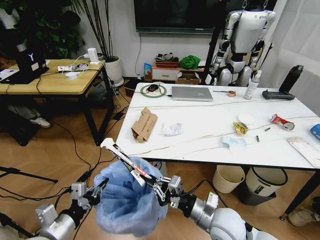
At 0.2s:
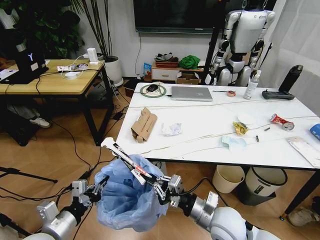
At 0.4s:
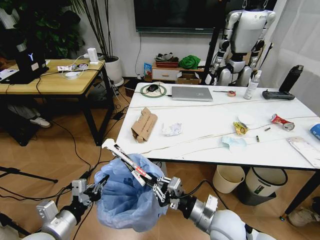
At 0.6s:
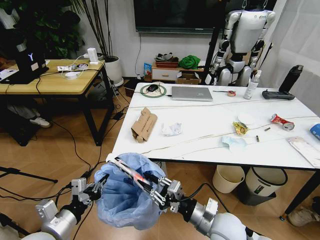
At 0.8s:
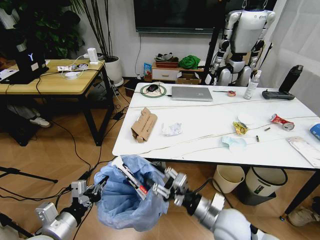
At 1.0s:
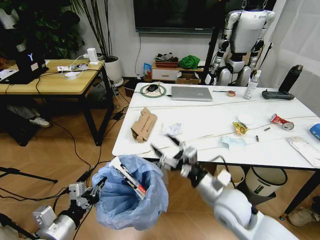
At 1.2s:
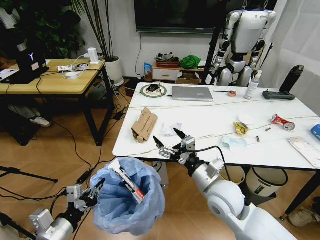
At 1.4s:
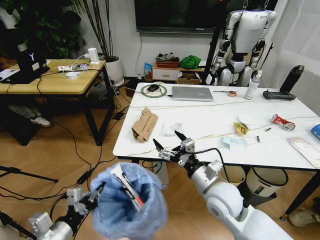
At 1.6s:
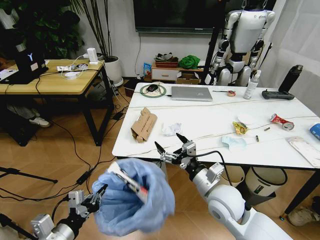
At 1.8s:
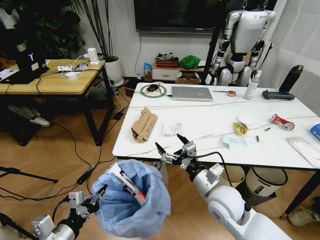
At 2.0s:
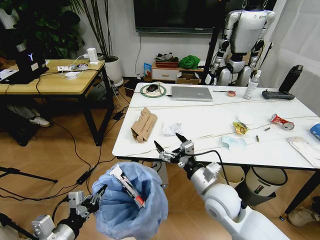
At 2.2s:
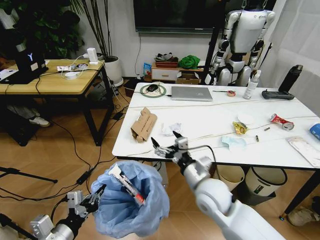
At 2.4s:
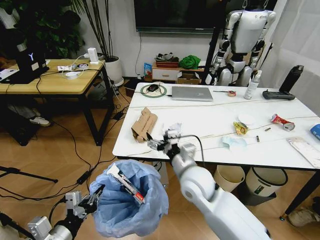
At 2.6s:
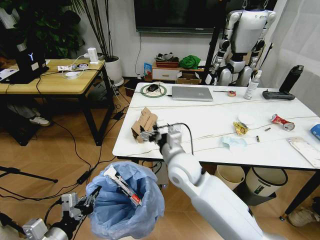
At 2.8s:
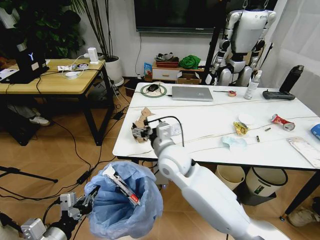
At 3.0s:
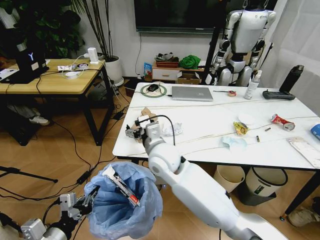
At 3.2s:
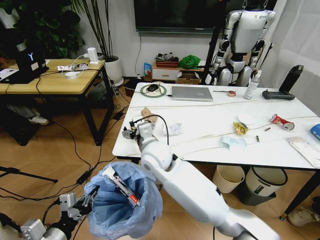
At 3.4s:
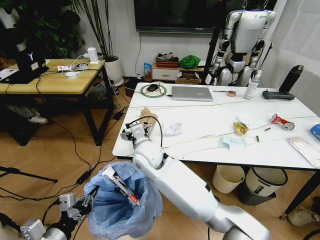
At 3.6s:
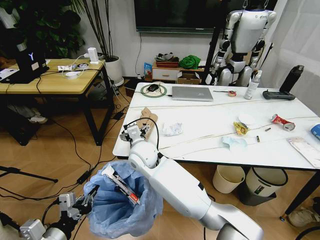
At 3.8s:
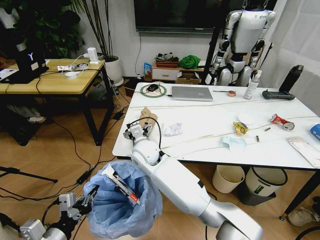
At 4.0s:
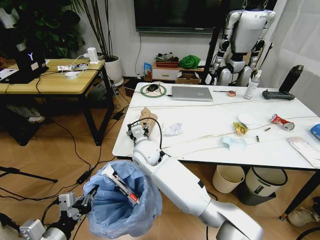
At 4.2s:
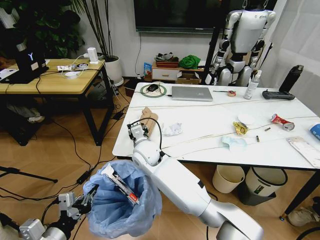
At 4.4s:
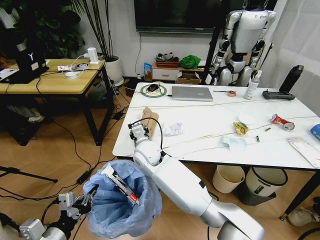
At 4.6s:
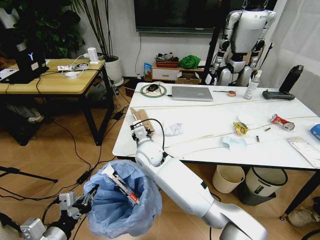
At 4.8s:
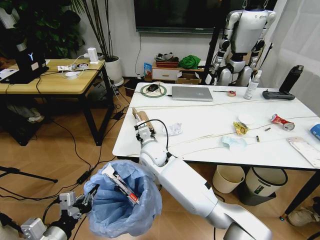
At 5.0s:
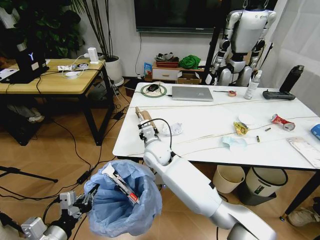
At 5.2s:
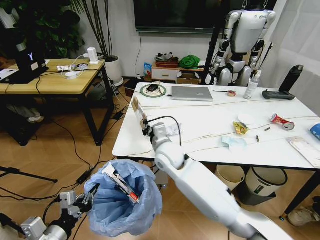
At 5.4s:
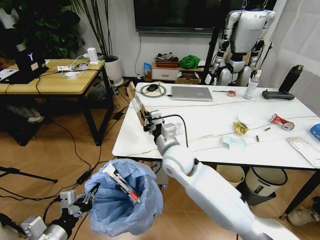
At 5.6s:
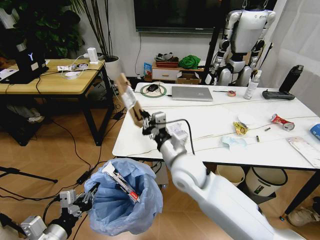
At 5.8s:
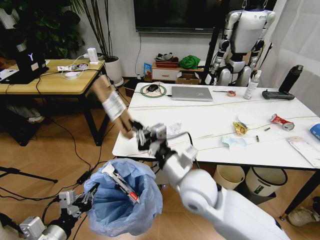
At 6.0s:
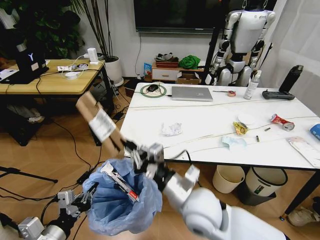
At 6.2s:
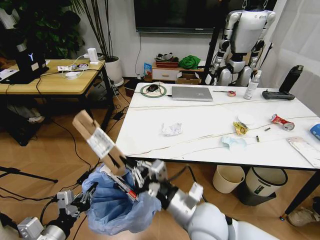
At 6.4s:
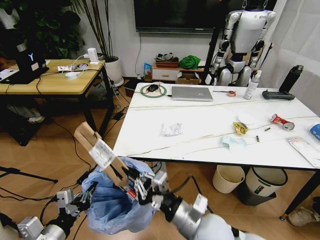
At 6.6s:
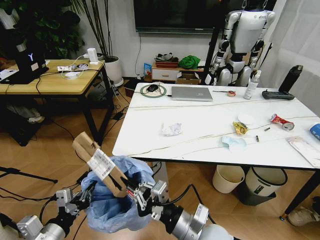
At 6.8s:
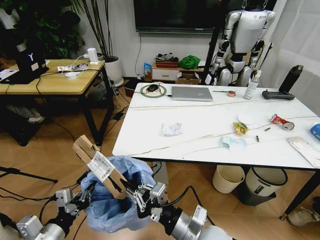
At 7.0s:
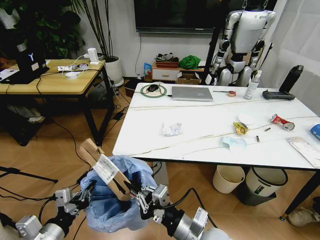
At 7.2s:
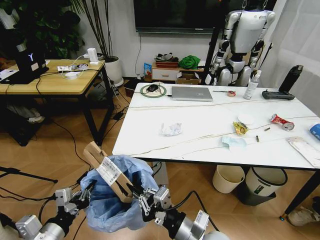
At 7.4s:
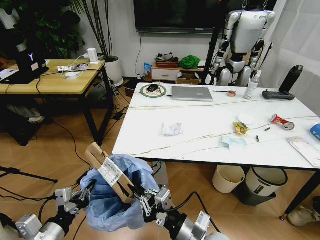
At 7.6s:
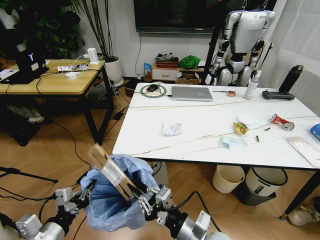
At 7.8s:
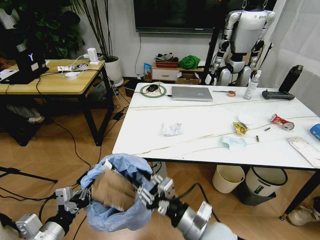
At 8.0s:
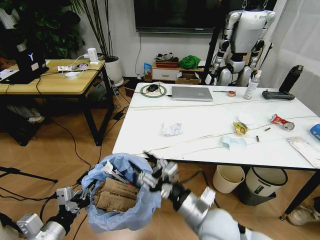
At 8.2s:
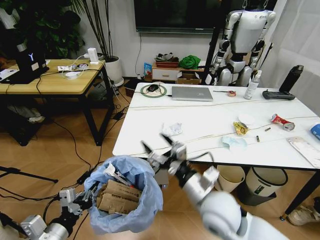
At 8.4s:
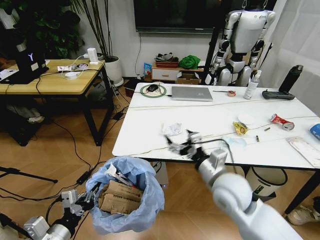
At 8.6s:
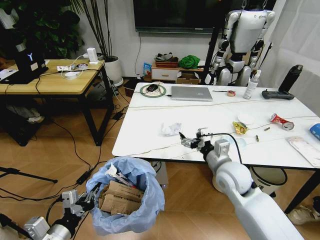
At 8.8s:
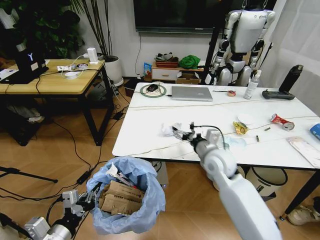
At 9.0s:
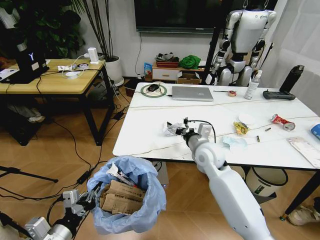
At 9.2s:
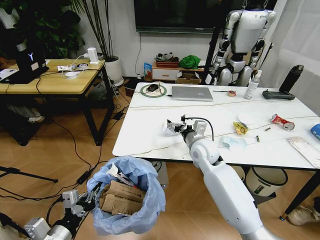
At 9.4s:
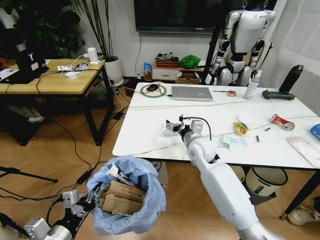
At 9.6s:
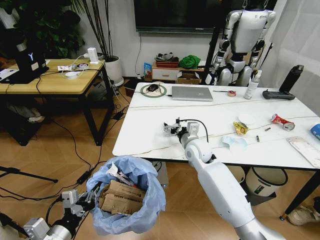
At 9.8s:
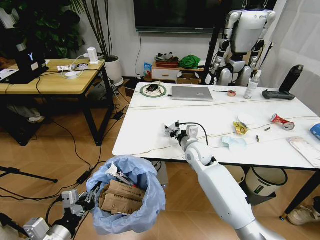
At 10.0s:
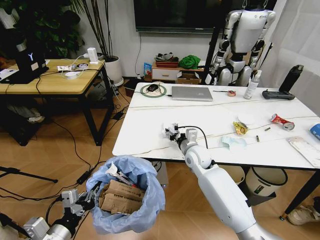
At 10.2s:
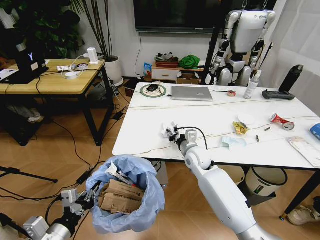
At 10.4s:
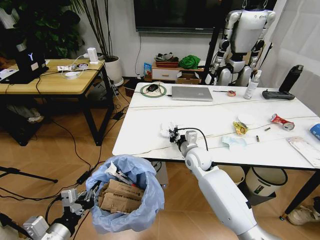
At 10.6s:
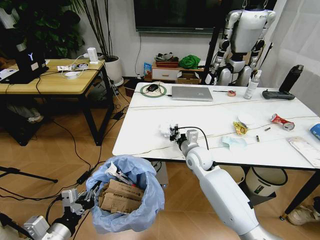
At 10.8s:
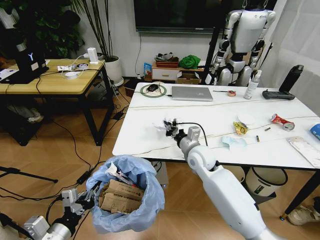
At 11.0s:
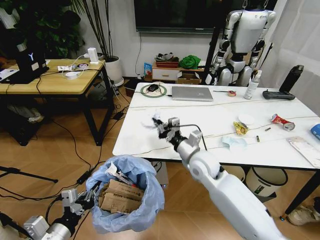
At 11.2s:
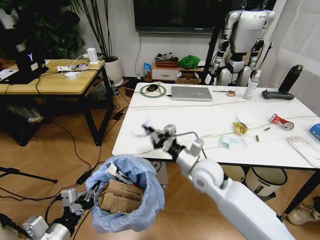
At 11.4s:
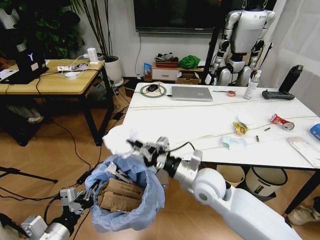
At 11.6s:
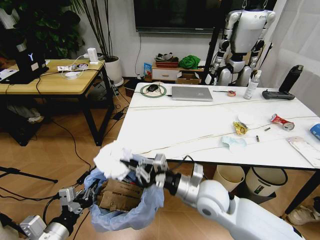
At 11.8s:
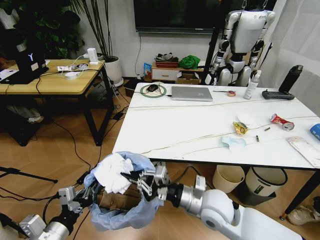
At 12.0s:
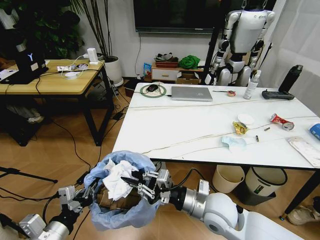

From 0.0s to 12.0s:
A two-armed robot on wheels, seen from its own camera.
Task of the whole recording: Pick up the trash bin and place the trash from the table into it.
From 0.0s to 1.6s: The right gripper moves forward, roughly 5 cm, and opens its fingers.
From 1.6s to 3.0s: The right gripper goes roughly 20 cm to the left, forward and upward.
From 3.0s to 4.4s: The right gripper shifts some 10 cm downward, forward and to the left, and closes its fingers.
From 4.4s to 6.0s: The right gripper moves backward and to the right, about 25 cm.
From 6.0s to 7.6s: The right gripper moves backward and downward, about 10 cm.
From 7.6s to 9.0s: The right gripper moves forward, roughly 25 cm, and opens up.
From 9.0s to 10.4s: The right gripper heads downward, covering approximately 5 cm, and closes.
From 10.4s to 12.0s: The right gripper shifts some 20 cm backward.

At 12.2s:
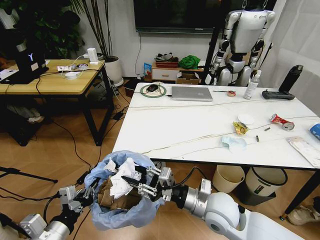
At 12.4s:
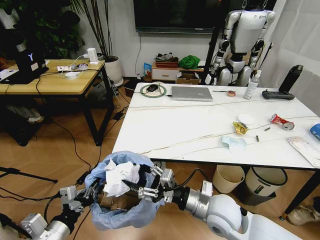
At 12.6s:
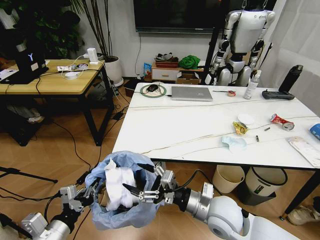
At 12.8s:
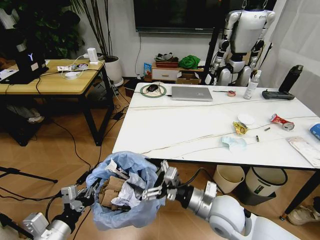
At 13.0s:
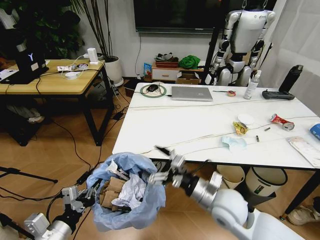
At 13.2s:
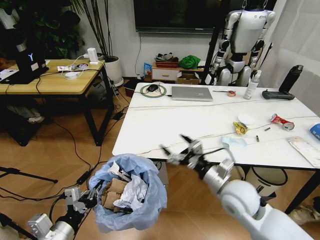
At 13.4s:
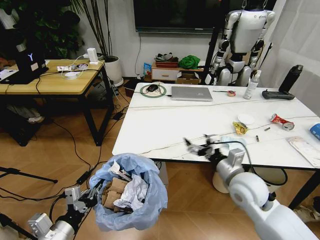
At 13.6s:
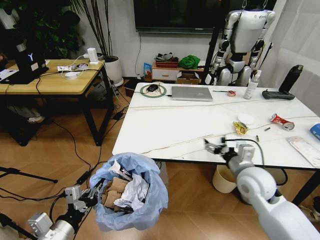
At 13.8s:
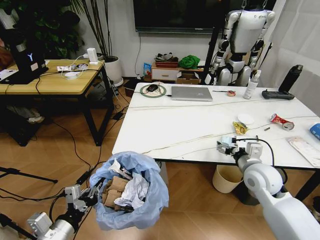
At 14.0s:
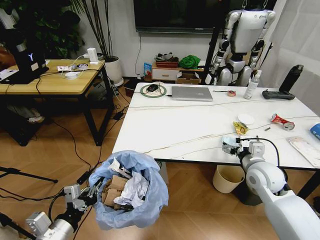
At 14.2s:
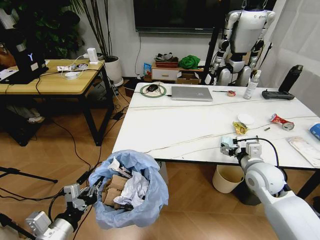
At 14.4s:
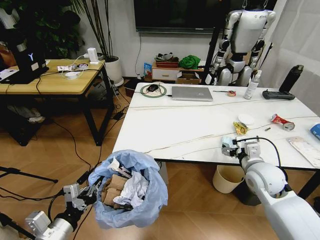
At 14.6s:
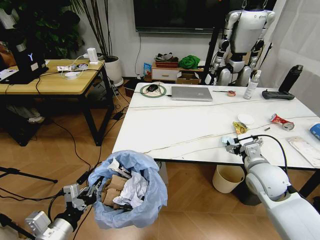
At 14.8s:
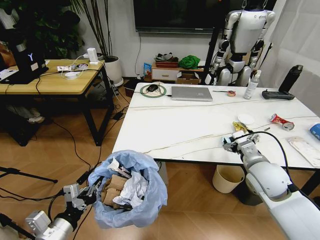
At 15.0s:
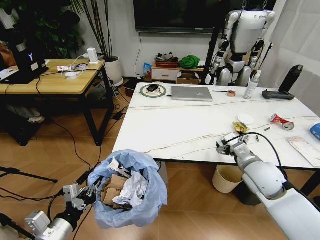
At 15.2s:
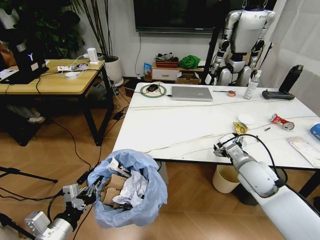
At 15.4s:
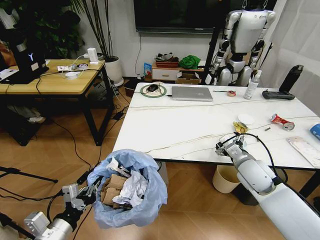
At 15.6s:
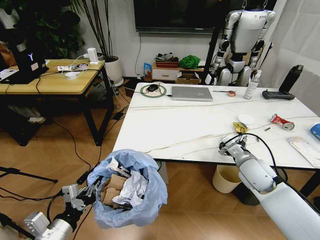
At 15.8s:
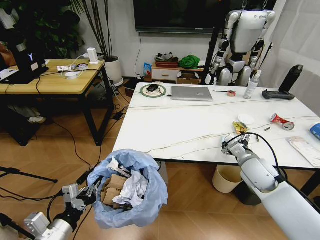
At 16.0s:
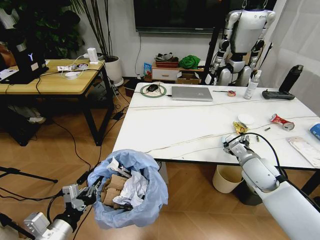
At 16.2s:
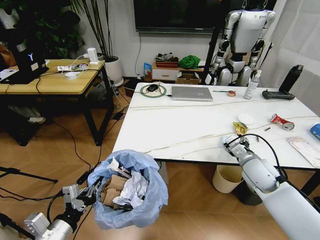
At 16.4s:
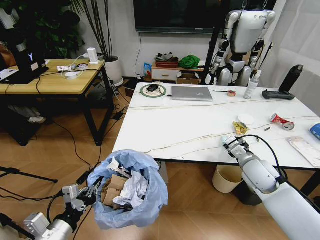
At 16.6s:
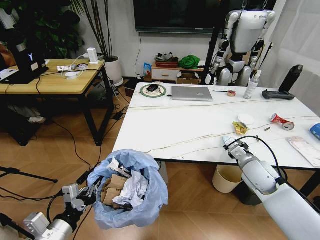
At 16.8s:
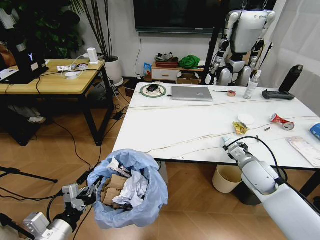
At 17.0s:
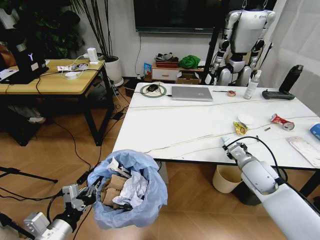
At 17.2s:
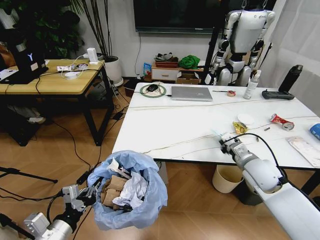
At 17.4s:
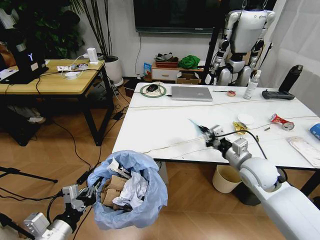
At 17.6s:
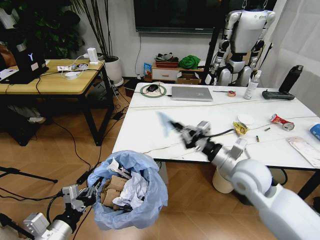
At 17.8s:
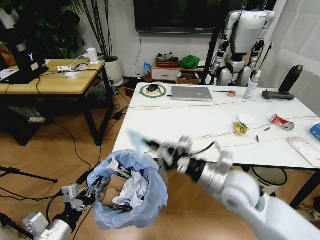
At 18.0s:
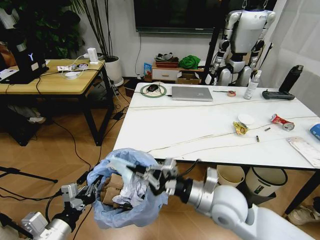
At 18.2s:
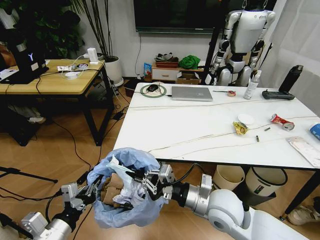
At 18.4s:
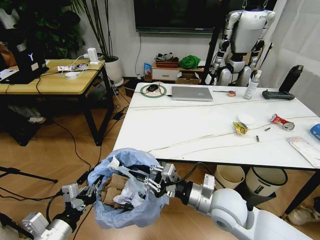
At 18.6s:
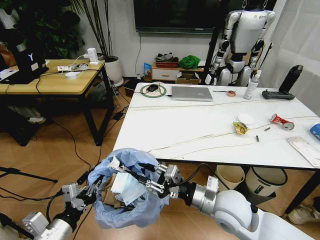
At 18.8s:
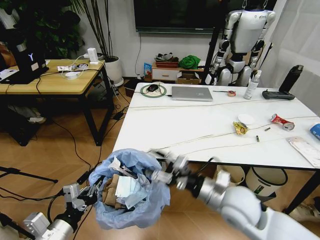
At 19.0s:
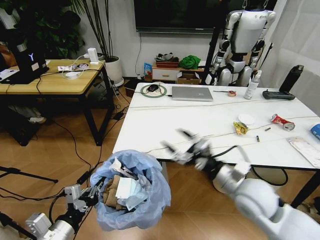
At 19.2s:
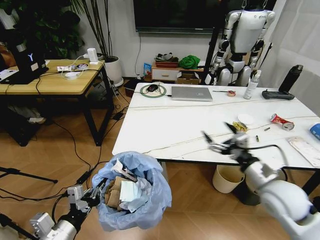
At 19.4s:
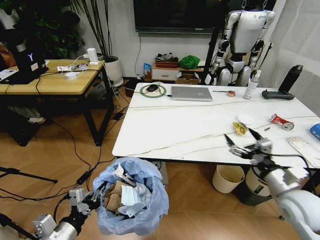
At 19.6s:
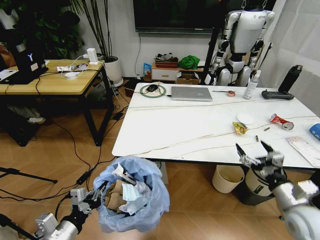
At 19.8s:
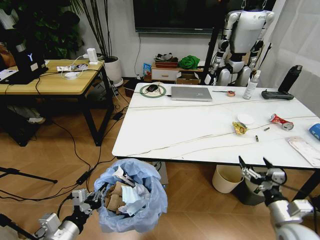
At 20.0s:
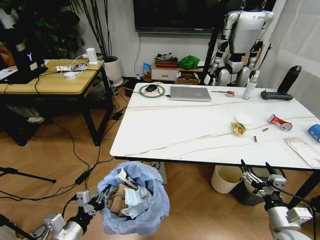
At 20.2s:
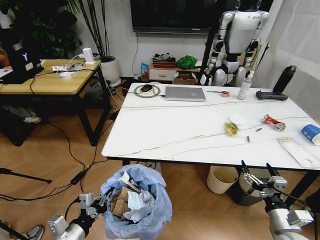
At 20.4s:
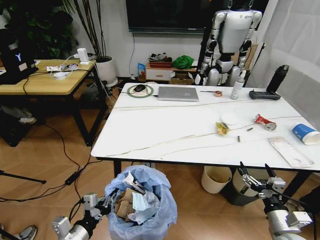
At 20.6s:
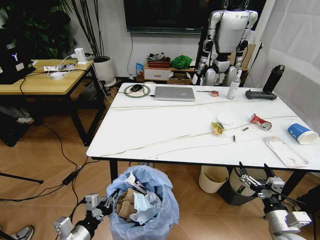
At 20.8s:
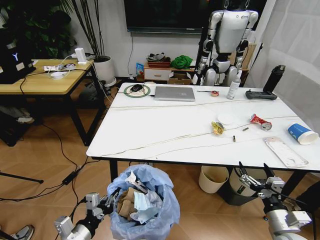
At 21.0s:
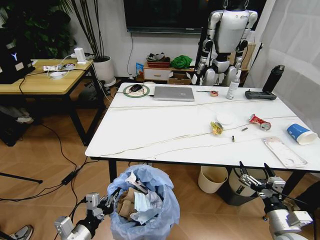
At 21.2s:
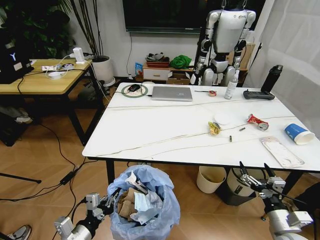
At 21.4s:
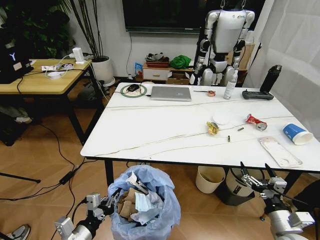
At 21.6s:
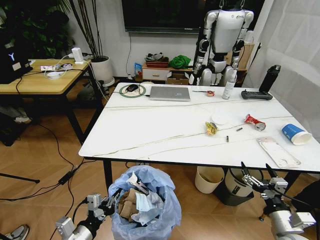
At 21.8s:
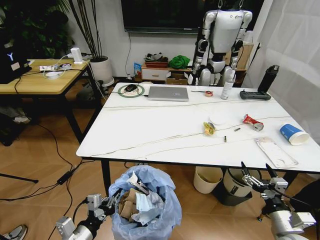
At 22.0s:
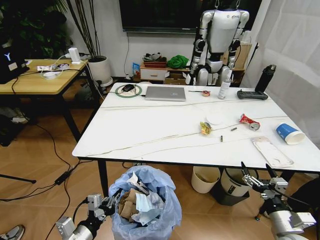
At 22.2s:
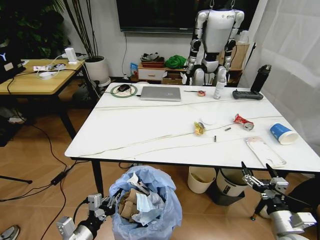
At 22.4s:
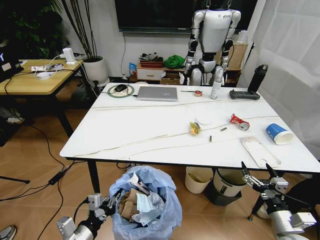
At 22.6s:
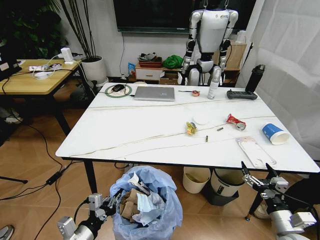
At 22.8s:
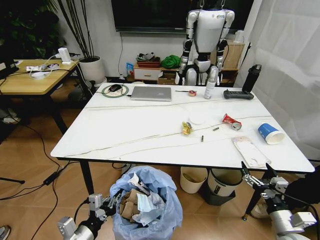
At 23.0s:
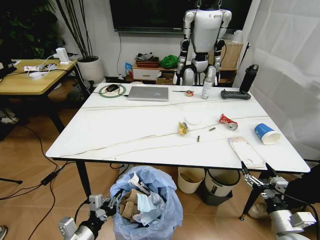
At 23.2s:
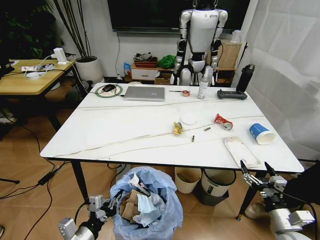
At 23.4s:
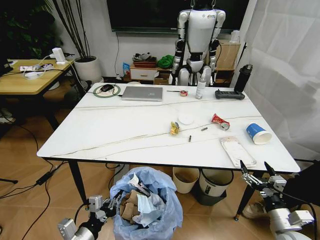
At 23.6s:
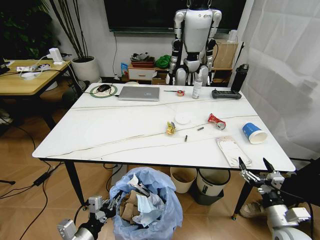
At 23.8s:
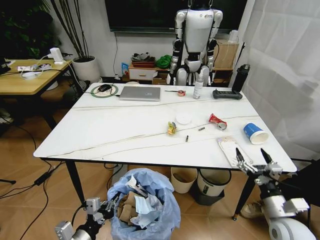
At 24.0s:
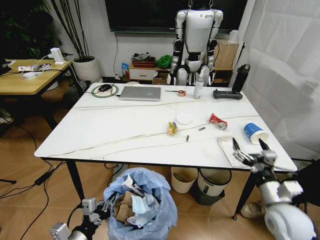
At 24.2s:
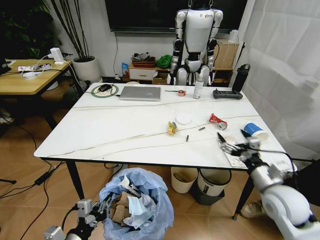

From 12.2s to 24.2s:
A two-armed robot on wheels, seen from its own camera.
Task of the whole recording: Pick up the trash bin and place the trash from the table into it.
From 12.2s to 13.8s: The right gripper travels to the right and forward by roughly 15 cm, and opens.
From 15.2s to 16.6s: The right gripper closes up.
From 16.6s to 18.2s: The right gripper heads to the left and backward, covering roughly 20 cm.
From 18.2s to 19.8s: The left gripper travels downward by about 5 cm, while the right gripper goes about 20 cm to the right, and opens.
From 22.6s to 24.2s: The right gripper goes roughly 15 cm upward, forward and to the left.
